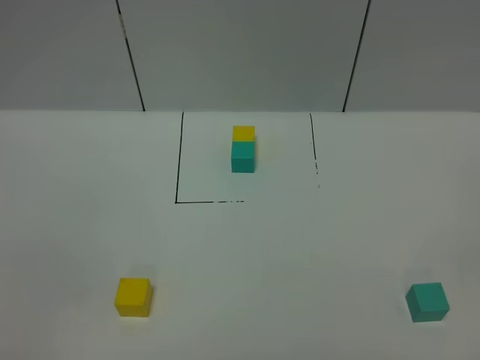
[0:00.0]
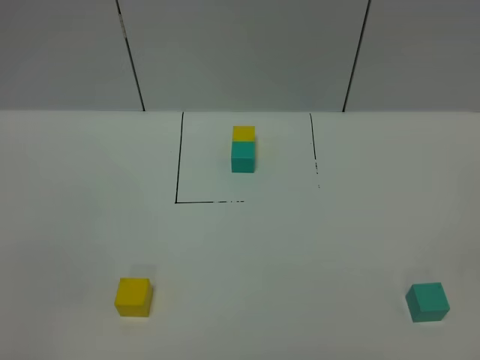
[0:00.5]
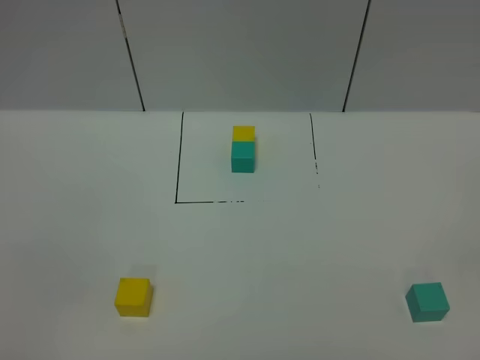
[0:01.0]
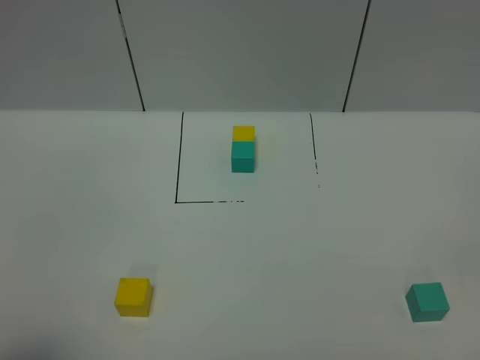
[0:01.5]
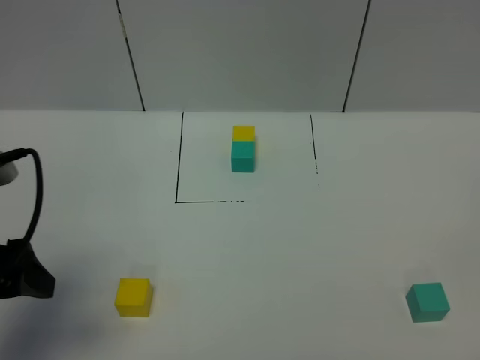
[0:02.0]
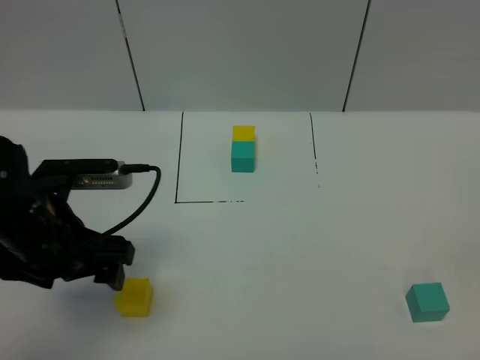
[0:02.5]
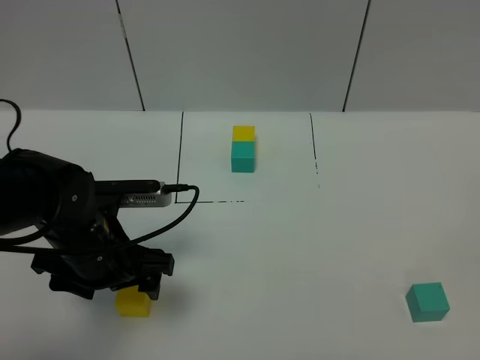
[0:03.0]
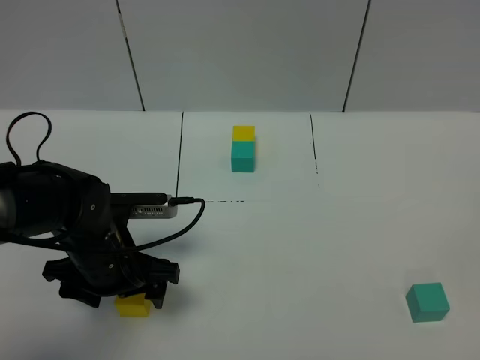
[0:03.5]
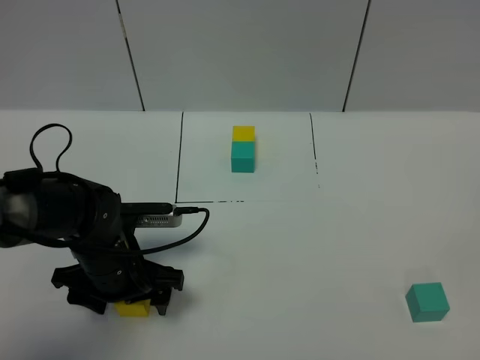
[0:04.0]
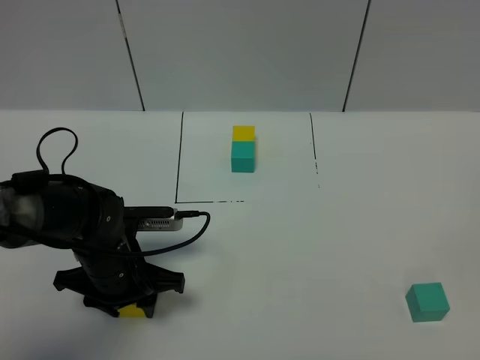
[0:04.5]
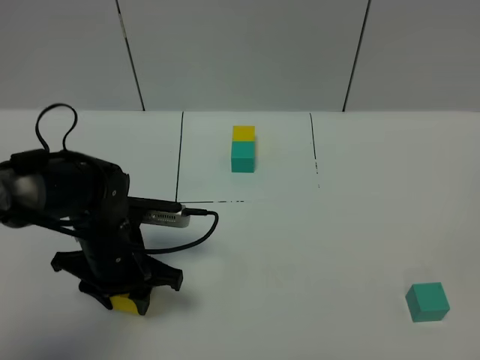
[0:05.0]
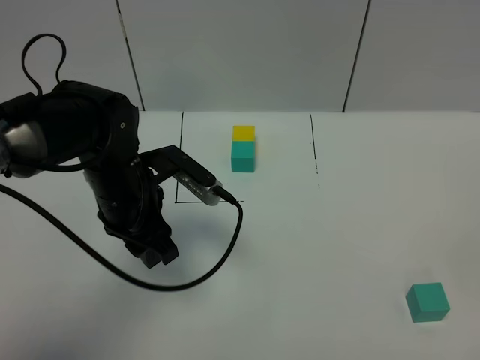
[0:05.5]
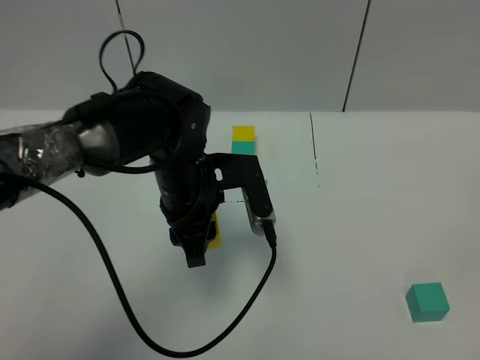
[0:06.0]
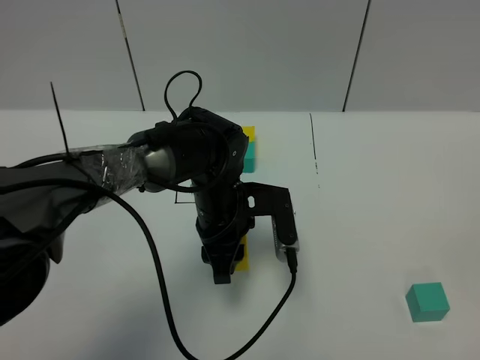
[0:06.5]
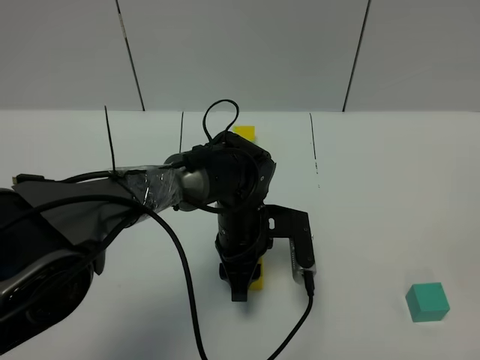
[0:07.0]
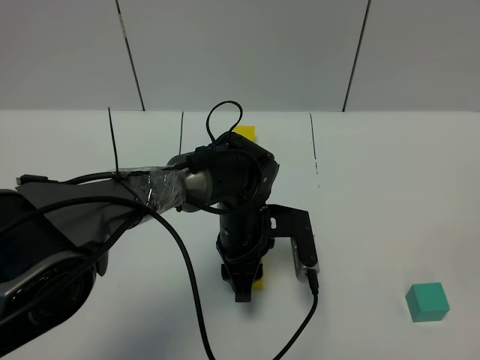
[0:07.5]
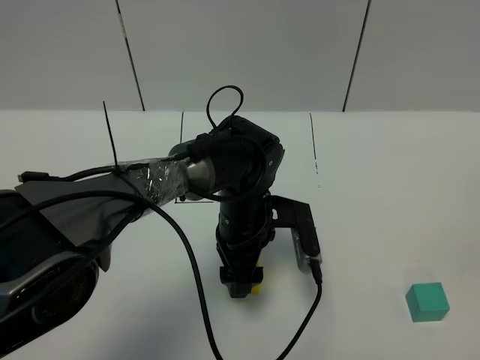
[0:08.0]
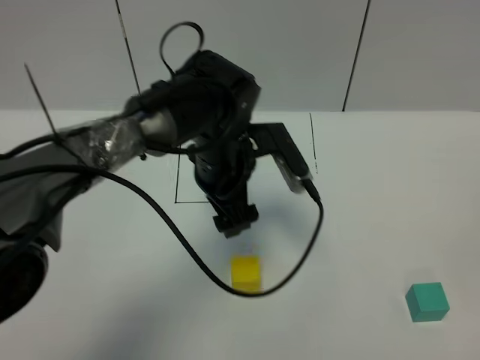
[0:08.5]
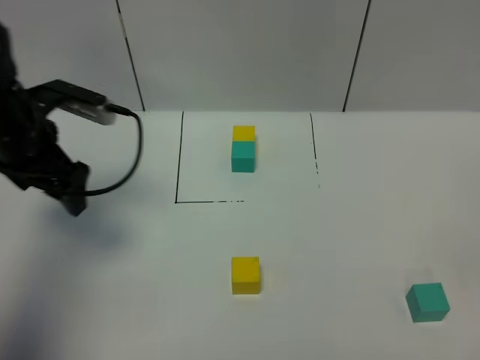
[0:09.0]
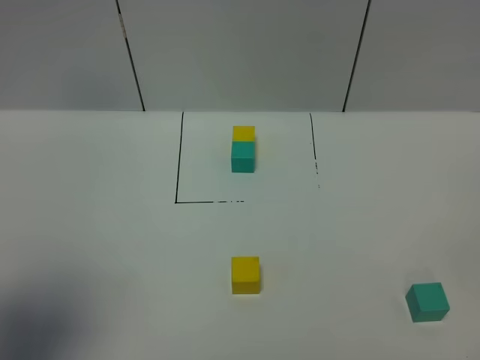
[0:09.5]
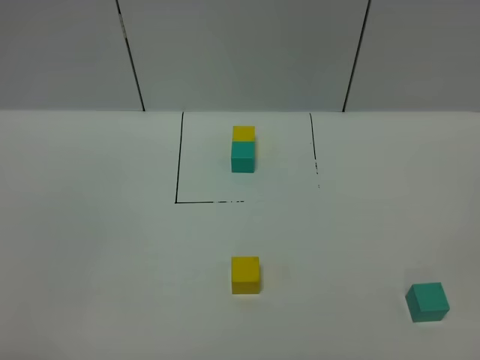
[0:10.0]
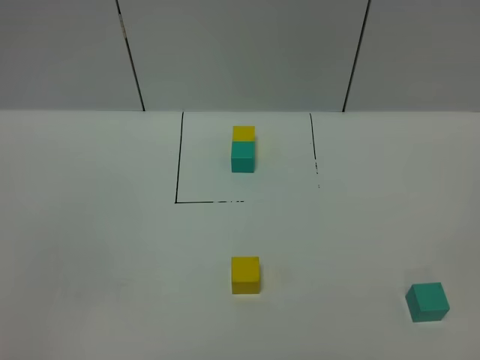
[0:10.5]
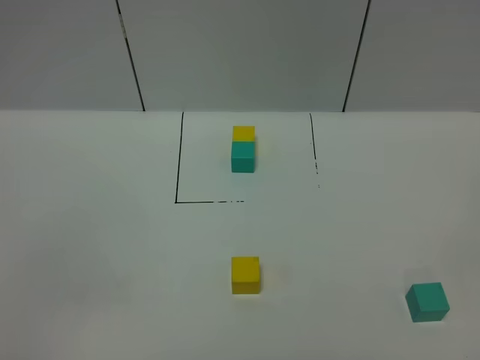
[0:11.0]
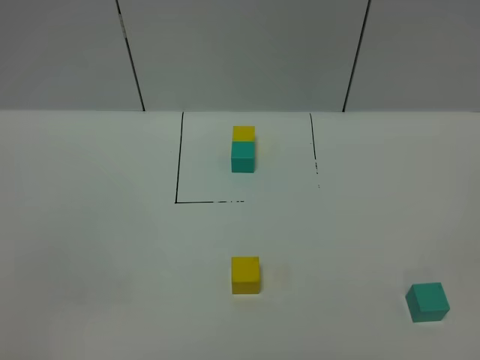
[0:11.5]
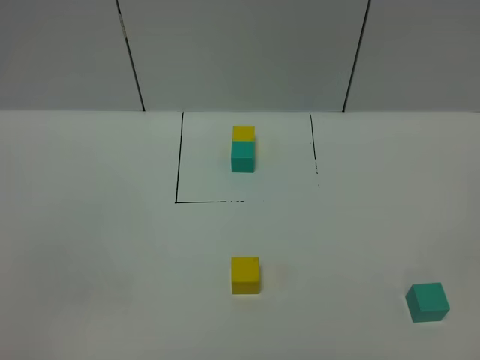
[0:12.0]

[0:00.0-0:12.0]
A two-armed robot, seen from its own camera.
Task of the whole recording: According to the building block template in front, assemble the scattered blocks together.
Step, 0:02.0 to 0:08.5: Put the yellow cube in the center of the table.
0:00.0 to 0:02.0: The left gripper travels forward by about 20 cm.
0:02.0 to 0:04.0: The left gripper travels downward, to the right and forward by about 20 cm.
0:04.0 to 0:06.0: The left gripper travels to the right, upward and forward by some 15 cm, and closes.
0:06.0 to 0:08.0: The left gripper shifts approximately 10 cm to the right and downward, and opens up.
0:08.0 to 0:10.0: The left gripper shifts roughly 50 cm backward, to the left and upward.

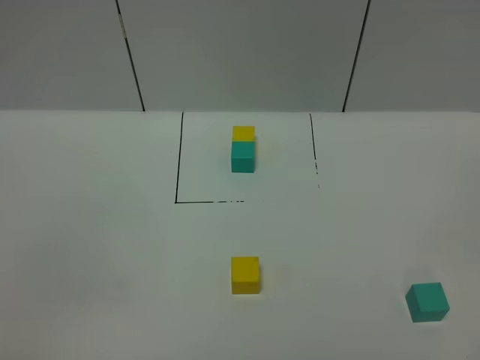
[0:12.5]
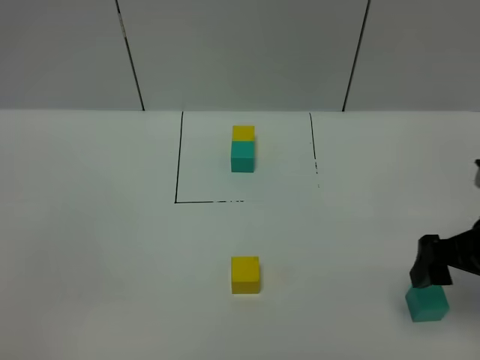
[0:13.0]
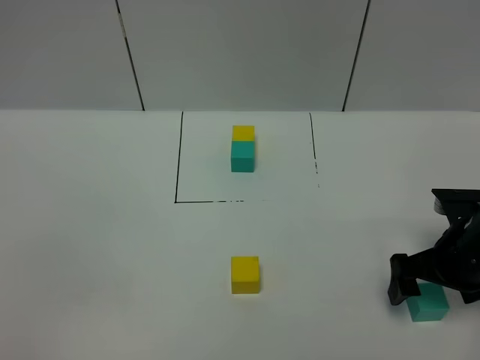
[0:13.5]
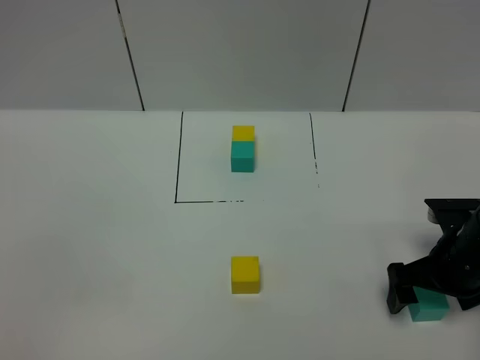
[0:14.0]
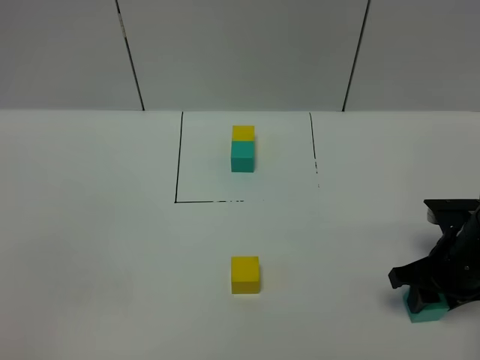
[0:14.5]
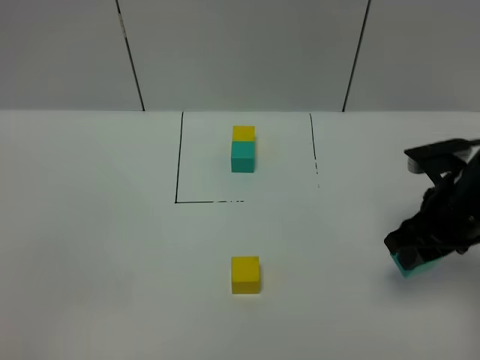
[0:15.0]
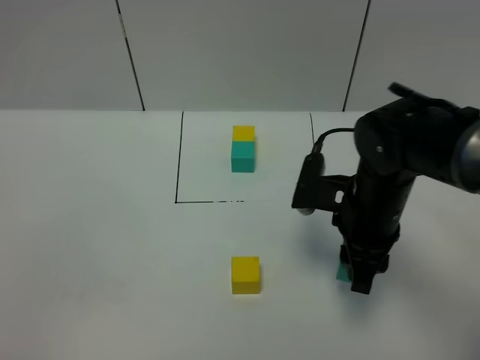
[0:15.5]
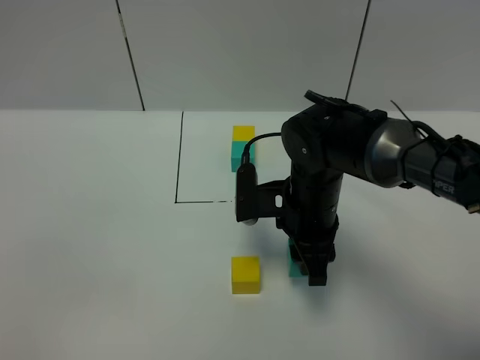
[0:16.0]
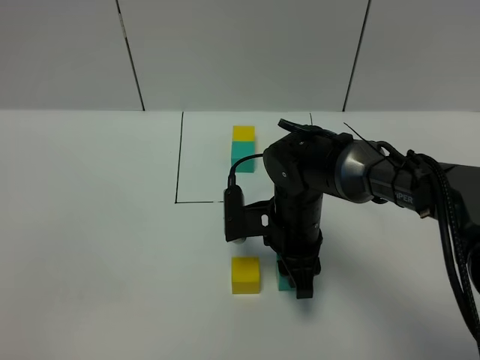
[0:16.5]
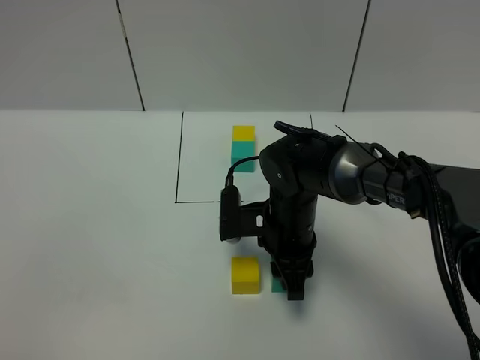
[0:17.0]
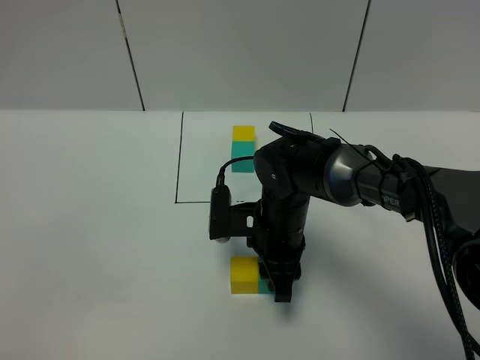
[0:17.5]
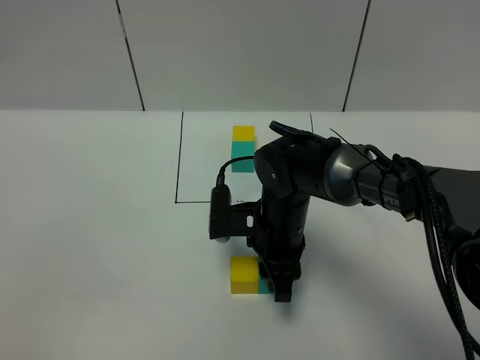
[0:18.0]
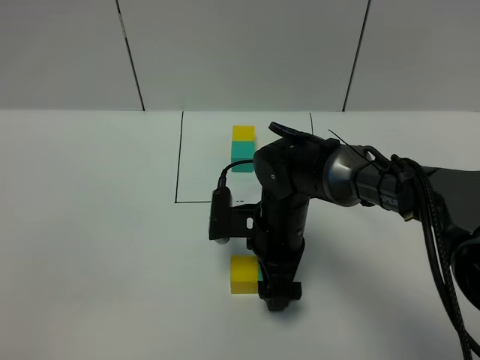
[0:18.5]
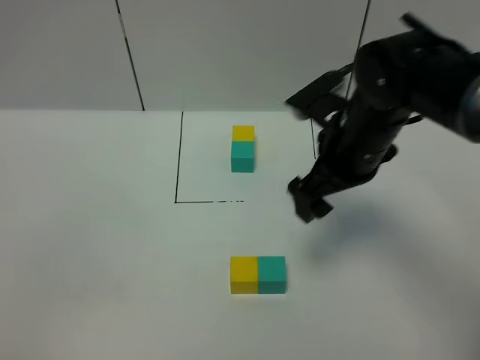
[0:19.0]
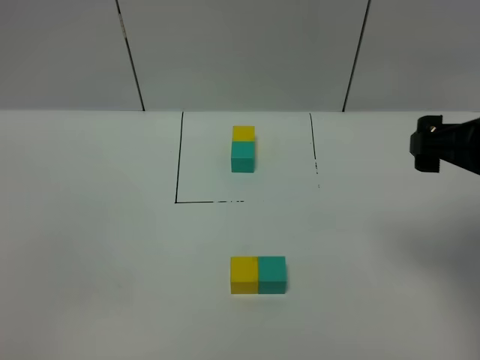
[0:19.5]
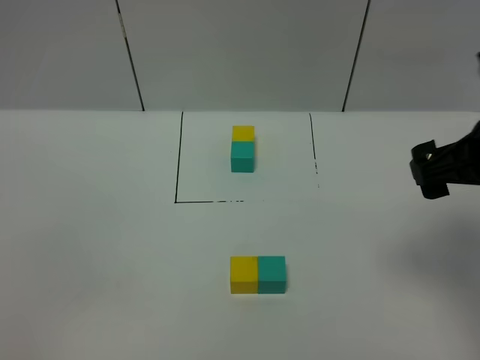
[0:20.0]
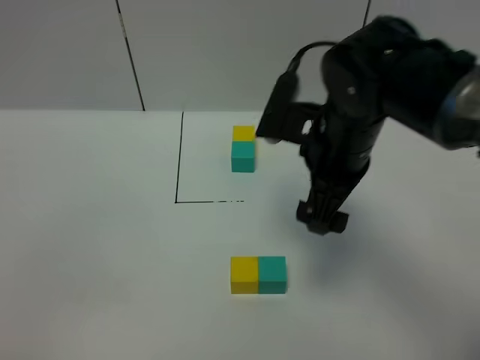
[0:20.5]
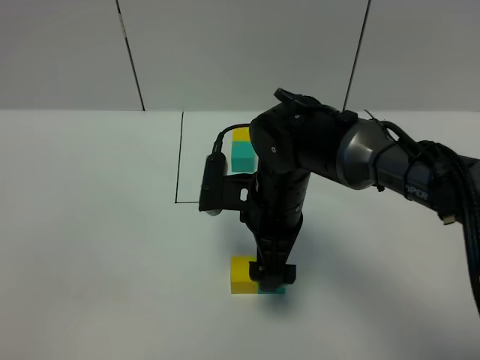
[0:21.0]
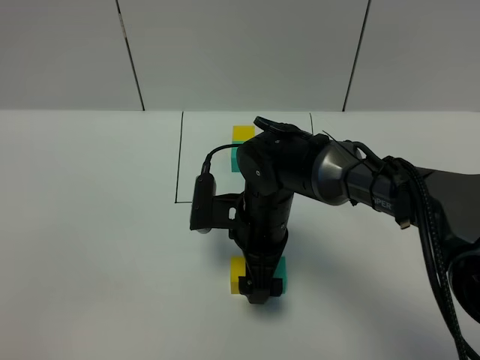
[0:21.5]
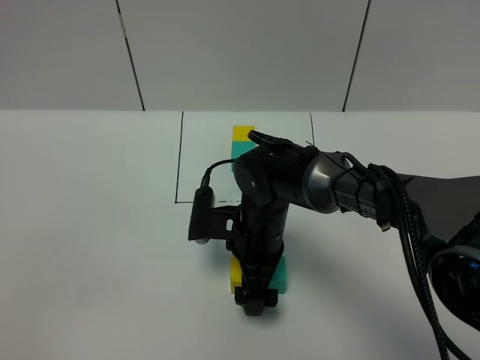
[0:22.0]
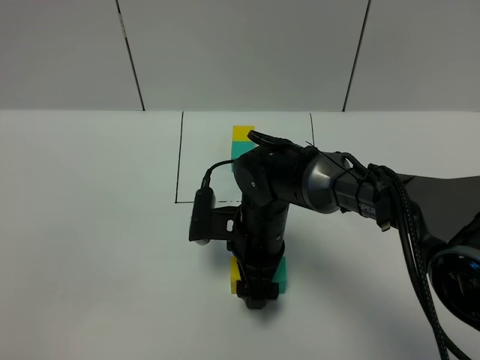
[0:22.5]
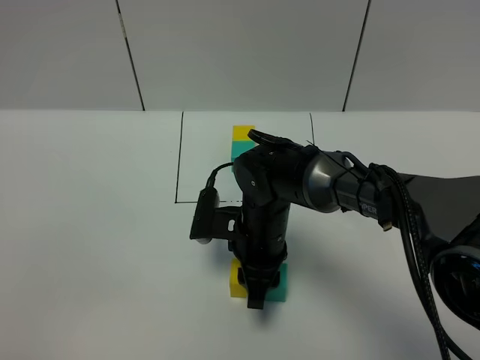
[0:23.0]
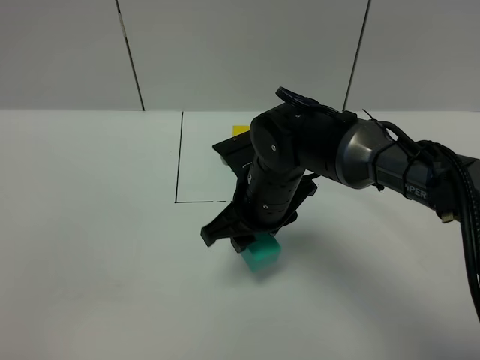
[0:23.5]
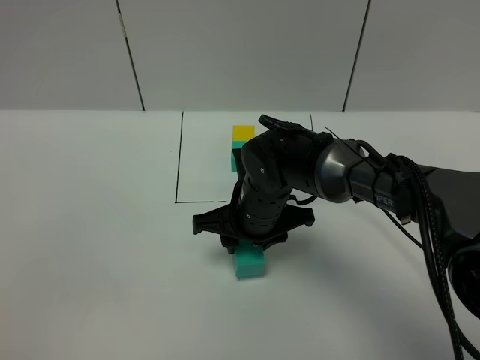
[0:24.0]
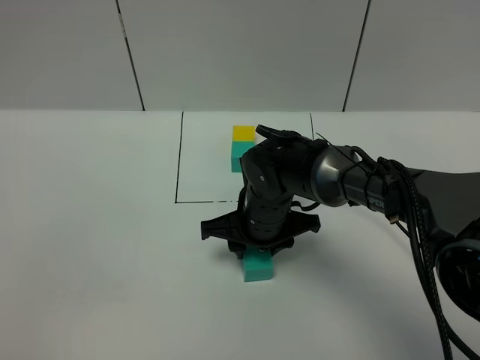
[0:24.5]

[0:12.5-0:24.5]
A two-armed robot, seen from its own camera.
Task of the whole recording: According to the building block template in front, assemble the scattered blocks together.
Step, 0:12.5 to 0:18.5: Put the green cube on the right of the yellow cube.
0:12.5 to 0:14.5: The right gripper goes some 30 cm forward and downward, and closes up.
0:14.5 to 0:16.5: The right gripper travels to the left by about 20 cm.
0:16.5 to 0:18.5: The right gripper opens its fingers.
0:18.5 to 0:20.5: The right gripper heads upward, covering some 15 cm, and moves approximately 20 cm to the right and comes back.
0:20.5 to 0:22.5: The right gripper is displaced downward and to the left by some 15 cm, and closes up.
0:22.5 to 0:24.5: The right gripper closes.

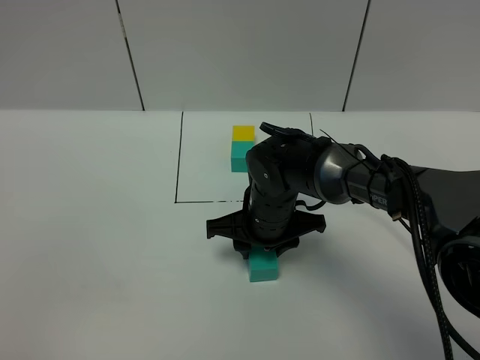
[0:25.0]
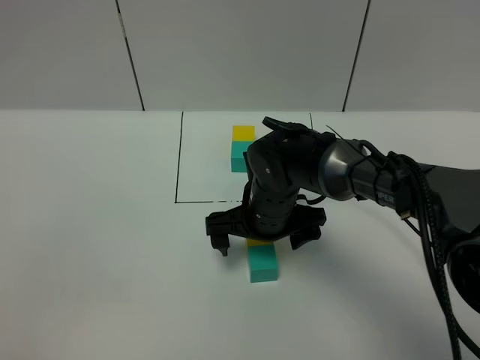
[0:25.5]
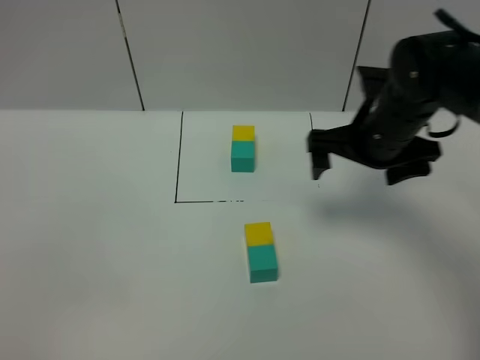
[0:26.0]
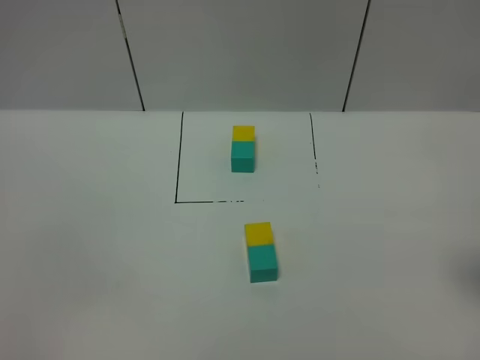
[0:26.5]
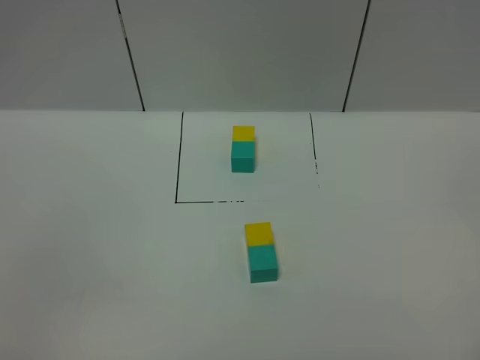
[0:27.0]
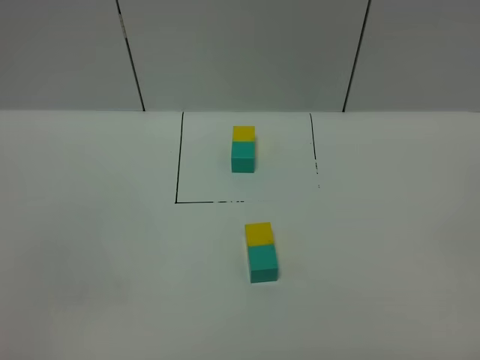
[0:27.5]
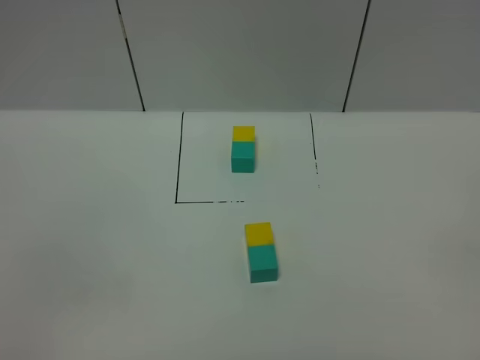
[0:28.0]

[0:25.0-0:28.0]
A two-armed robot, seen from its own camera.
Task of the whole recording: According to the building block template in front, assemble the scattered blocks together.
0:25.0 to 0:26.5: The right gripper travels to the right, upward and backward by roughly 40 cm, and opens up.
